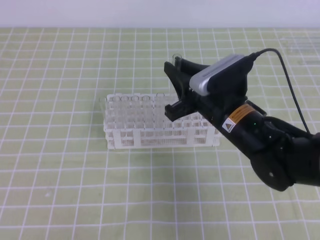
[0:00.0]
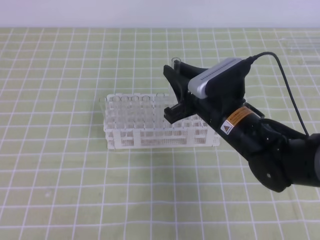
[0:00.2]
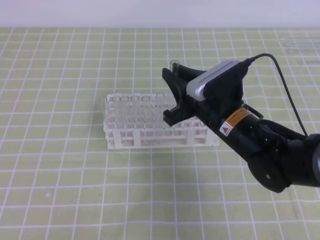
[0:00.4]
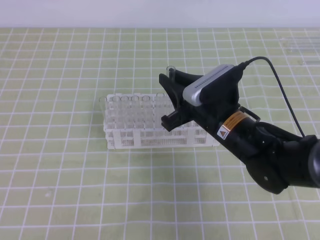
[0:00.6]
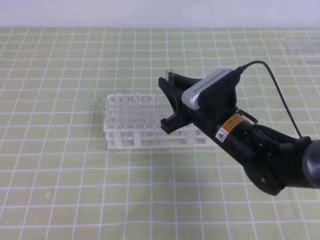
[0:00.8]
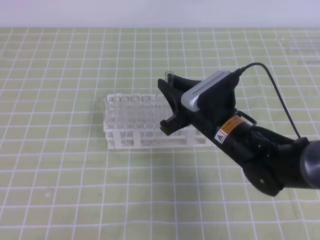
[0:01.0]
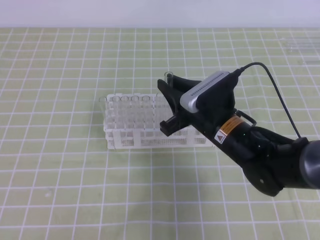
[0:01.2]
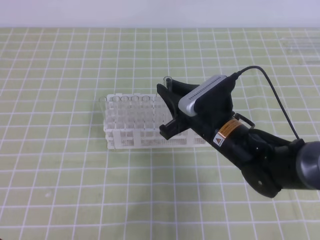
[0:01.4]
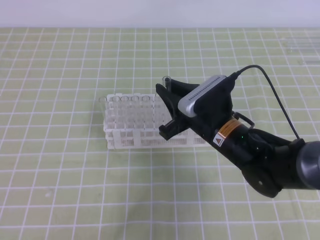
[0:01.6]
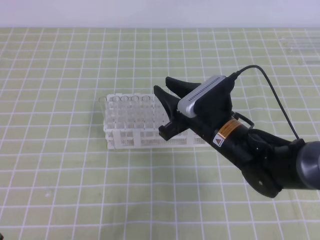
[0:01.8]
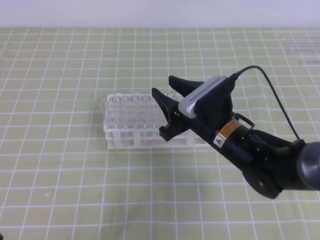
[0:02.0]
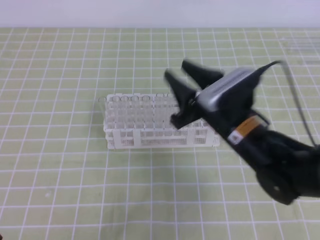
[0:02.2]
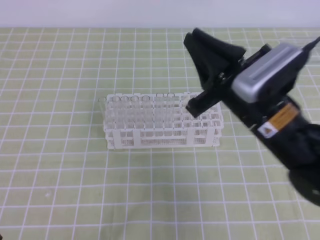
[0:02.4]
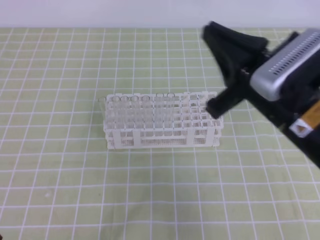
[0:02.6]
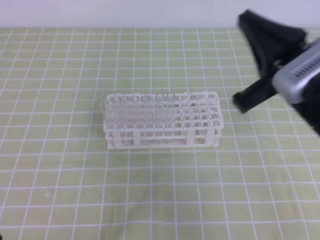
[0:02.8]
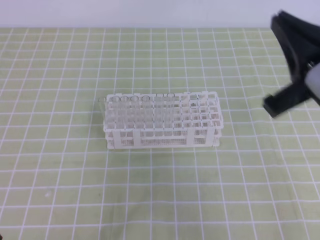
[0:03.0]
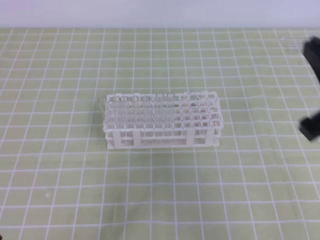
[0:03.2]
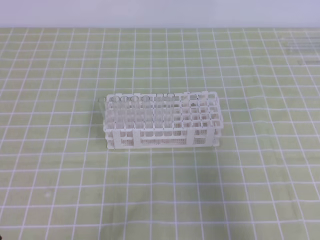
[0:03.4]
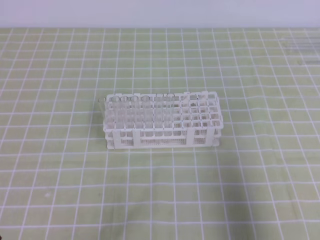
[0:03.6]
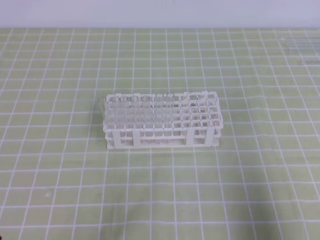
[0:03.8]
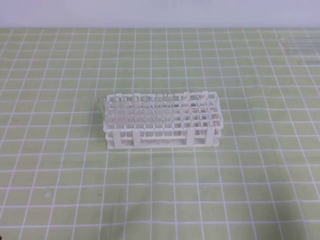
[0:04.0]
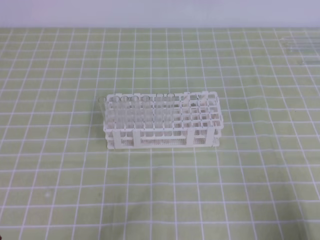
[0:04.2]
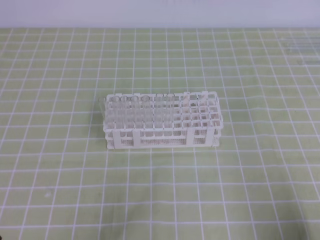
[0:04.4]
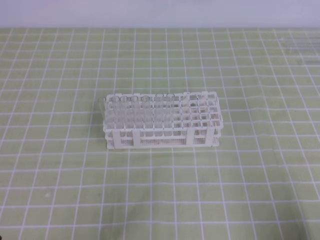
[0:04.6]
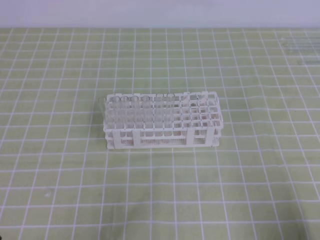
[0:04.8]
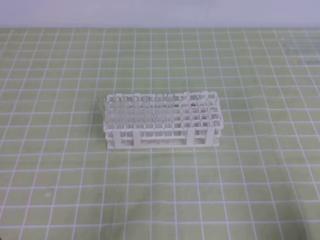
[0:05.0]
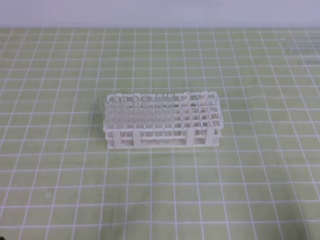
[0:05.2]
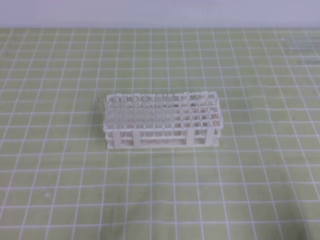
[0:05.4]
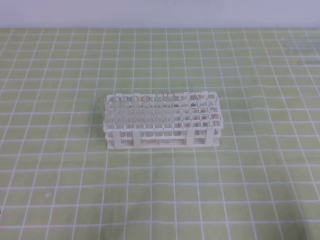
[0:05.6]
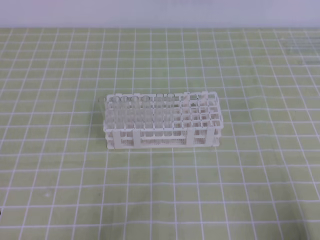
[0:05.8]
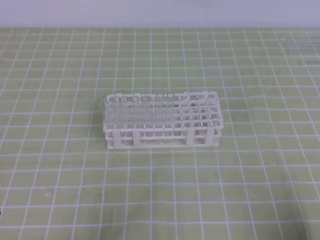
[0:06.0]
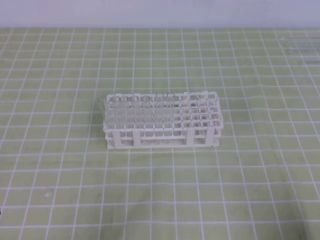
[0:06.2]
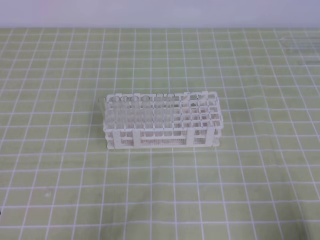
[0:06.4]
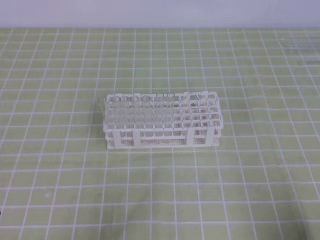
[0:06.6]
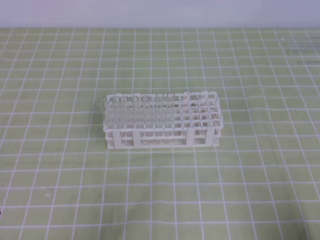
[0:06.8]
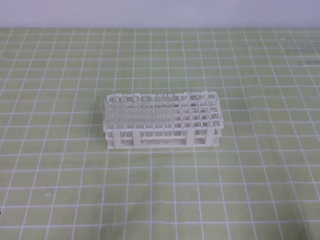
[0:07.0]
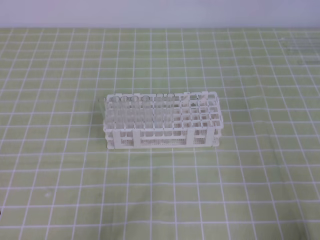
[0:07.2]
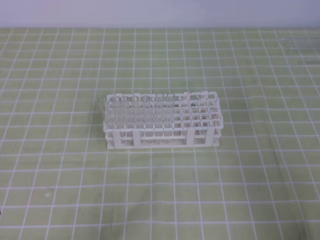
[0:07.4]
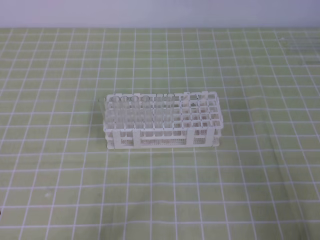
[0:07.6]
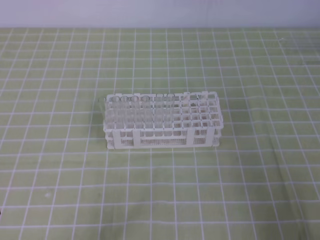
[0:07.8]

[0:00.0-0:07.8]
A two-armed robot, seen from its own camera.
0:00.0 to 0:01.6: The left gripper is displaced downward by approximately 10 cm.
0:01.6 to 0:03.2: The right gripper moves to the right, upward and backward, some 25 cm, and opens and closes again.
0:03.2 to 0:04.6: The right gripper moves downward, backward and to the right, some 20 cm.
0:06.2 to 0:07.8: The two grippers keep their place.
